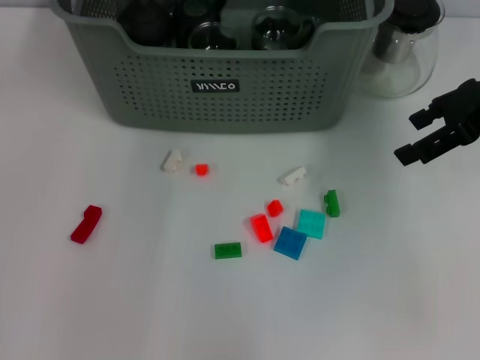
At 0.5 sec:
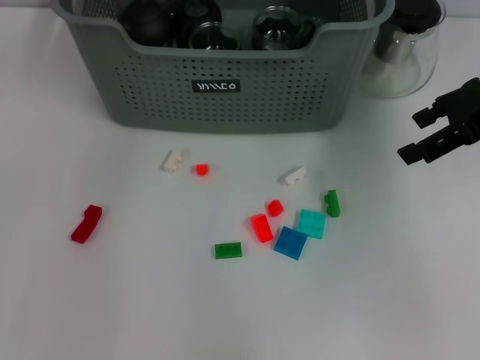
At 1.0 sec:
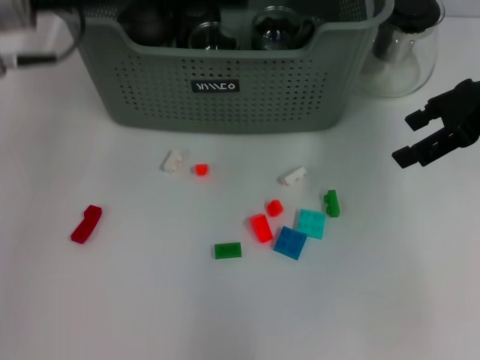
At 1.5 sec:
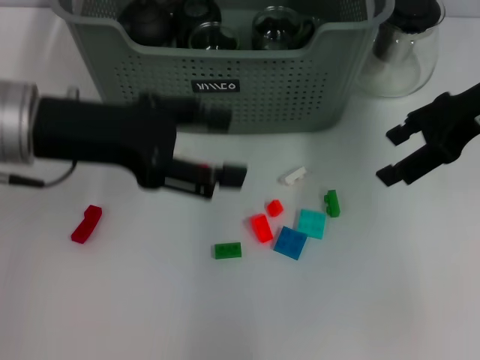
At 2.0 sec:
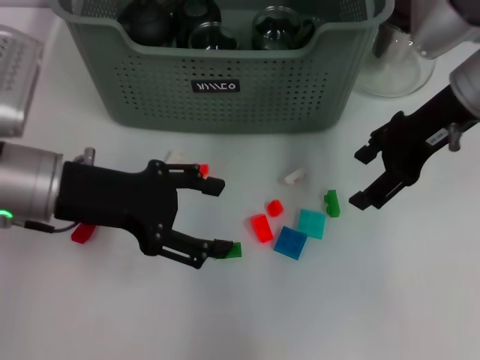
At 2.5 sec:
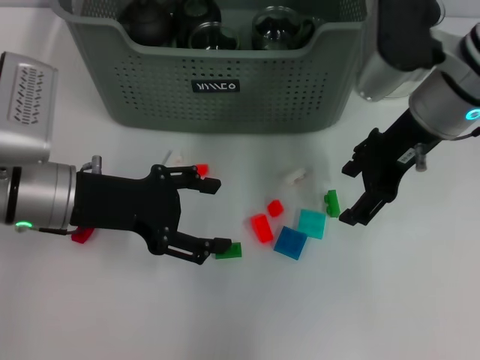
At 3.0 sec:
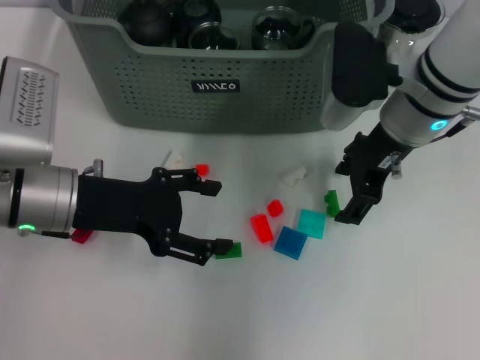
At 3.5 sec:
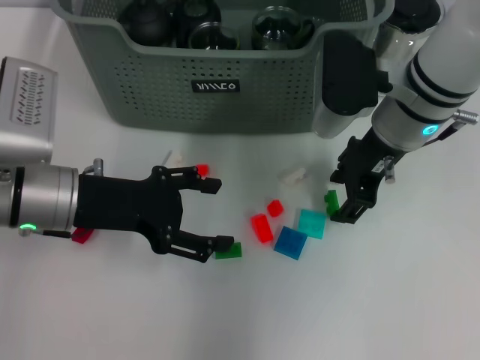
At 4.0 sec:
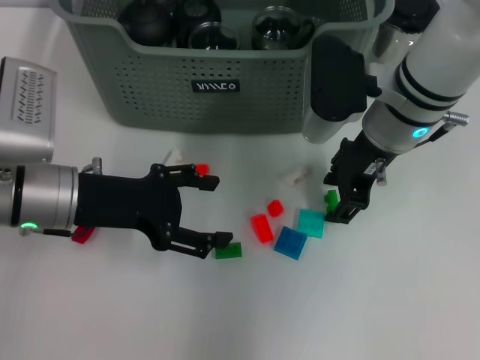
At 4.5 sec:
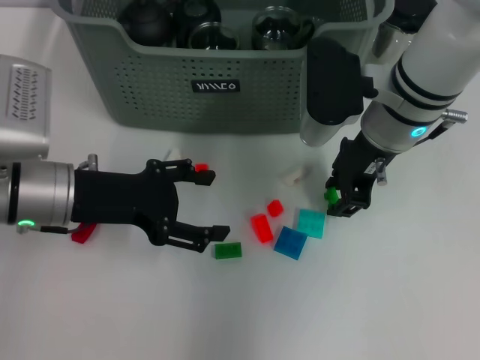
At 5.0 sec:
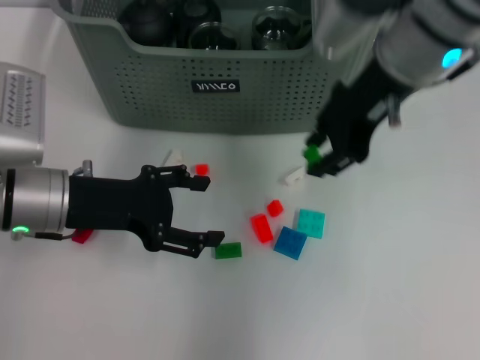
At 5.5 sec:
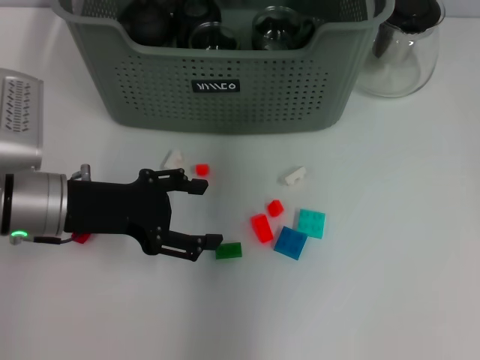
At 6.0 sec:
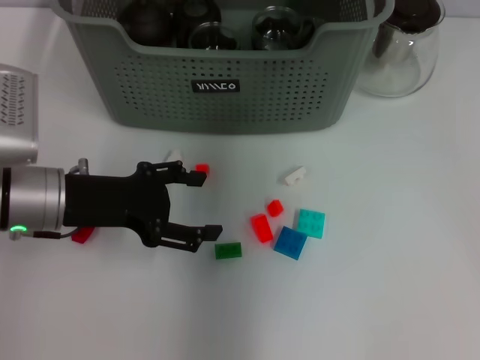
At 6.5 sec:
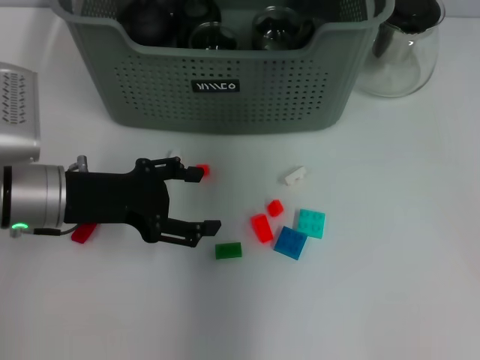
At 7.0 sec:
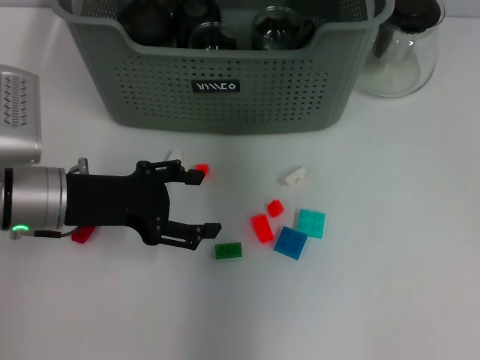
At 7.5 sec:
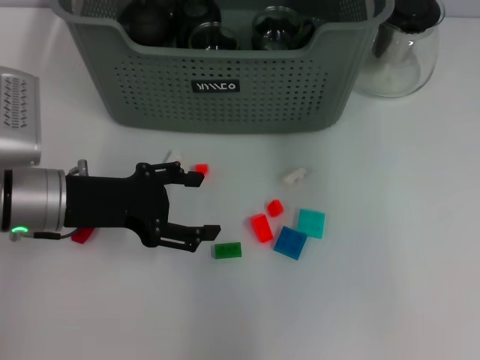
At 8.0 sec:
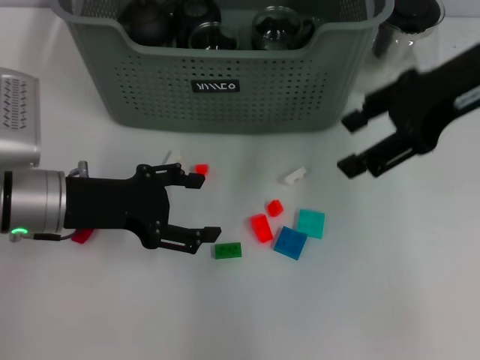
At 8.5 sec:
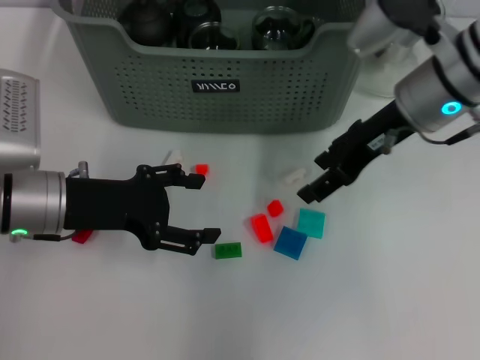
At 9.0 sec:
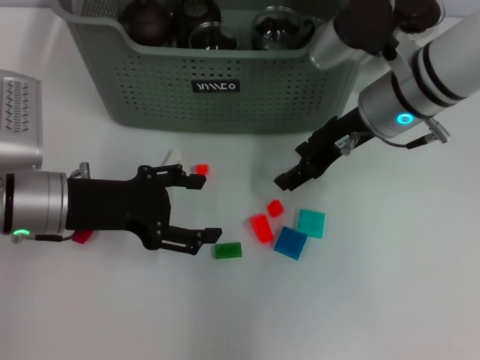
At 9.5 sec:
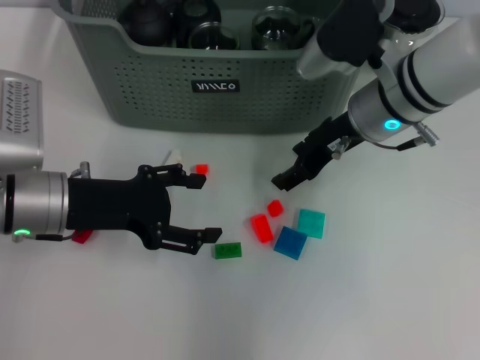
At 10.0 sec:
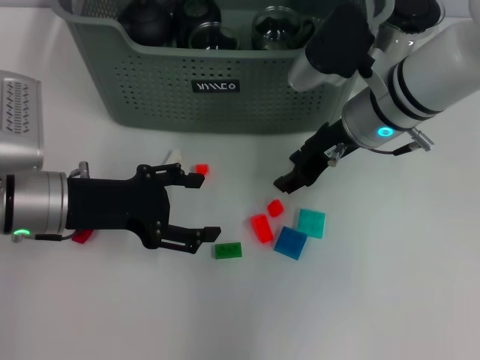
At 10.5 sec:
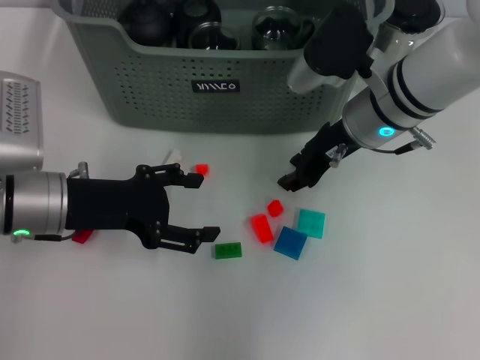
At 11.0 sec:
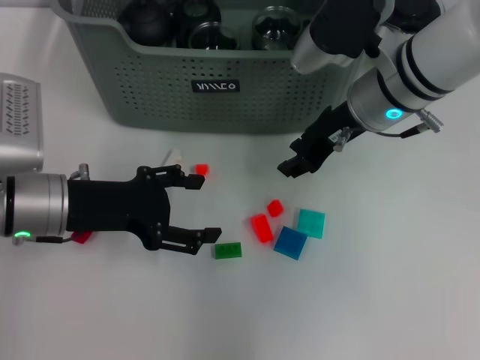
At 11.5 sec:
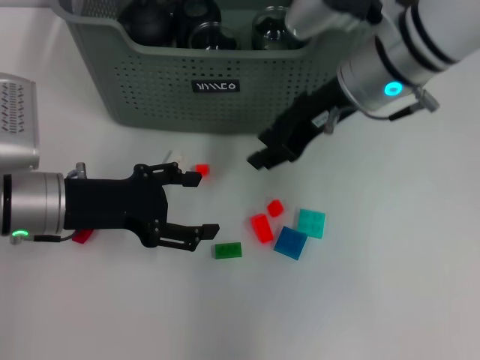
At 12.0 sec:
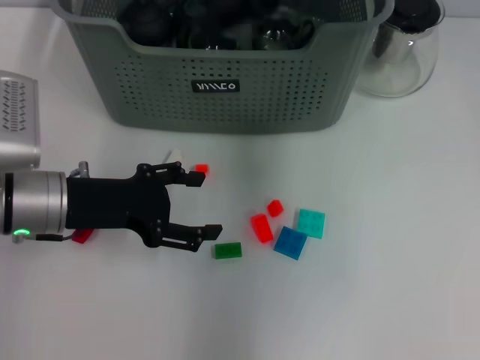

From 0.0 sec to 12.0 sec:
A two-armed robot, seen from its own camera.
Task of the whole recording: pick up the teacup on the table and place it into the storage bin, pick up the block on the table and place it into the storage bin.
Step, from 0.0 sec to 4.0 sec: Grasp the green block with right gripper.
Step, from 4.5 sec to 6.5 sec: Place the green block in the storage box with right gripper.
Step, from 7.0 sec to 10.0 sec: Grasp the white block with right gripper.
From 0.0 sec to 2.0 sec: The left gripper is displaced backward, to the left and downward by about 25 cm, and opens up. The right gripper shifts some 5 cm to the left.
From 2.0 sec to 4.0 sec: The right gripper goes roughly 10 cm to the left.
From 4.0 sec to 6.0 sec: The right gripper shifts some 15 cm upward, forward and to the left.
From 6.0 sec to 8.0 sec: The right gripper moves to the right and backward, approximately 20 cm.
From 8.0 sec to 10.0 sec: The right gripper travels downward and to the left by roughly 15 cm.
From 10.0 sec to 12.0 sec: The right gripper shifts about 20 cm upward.

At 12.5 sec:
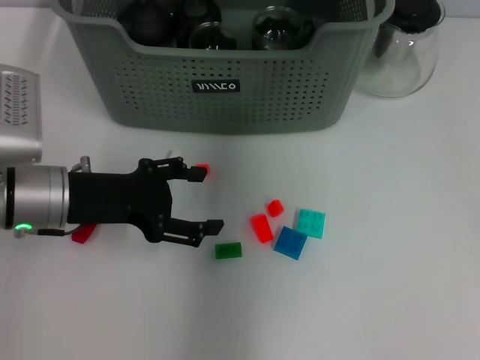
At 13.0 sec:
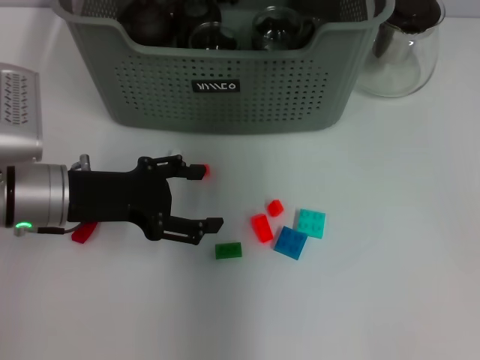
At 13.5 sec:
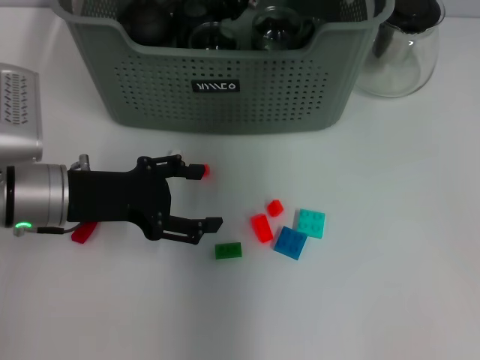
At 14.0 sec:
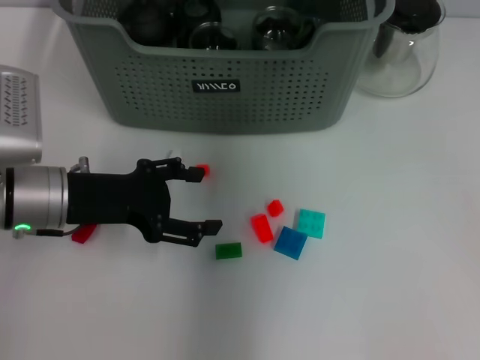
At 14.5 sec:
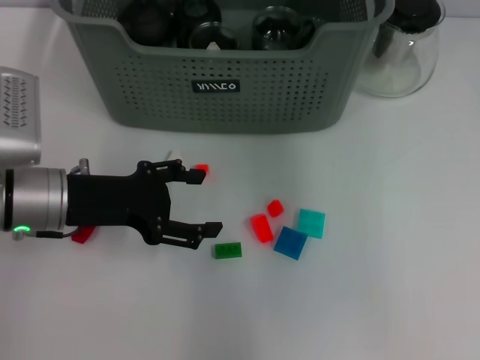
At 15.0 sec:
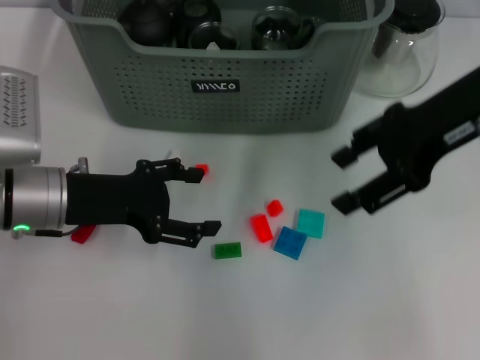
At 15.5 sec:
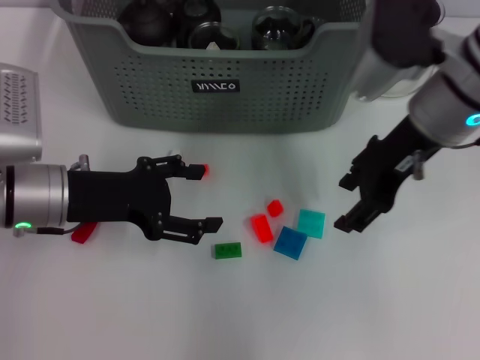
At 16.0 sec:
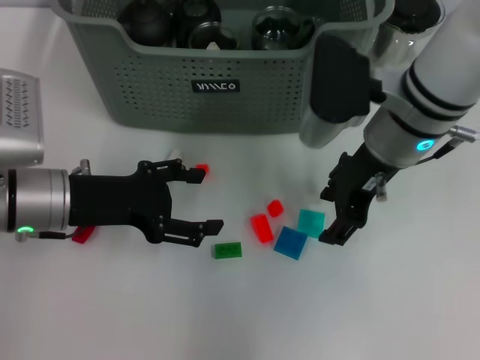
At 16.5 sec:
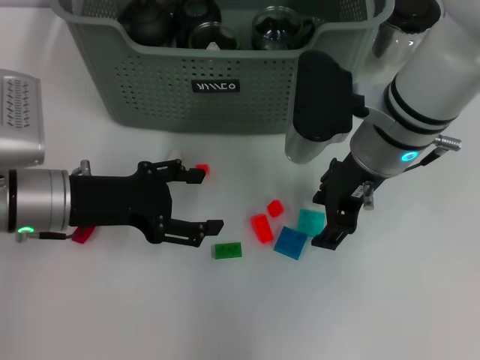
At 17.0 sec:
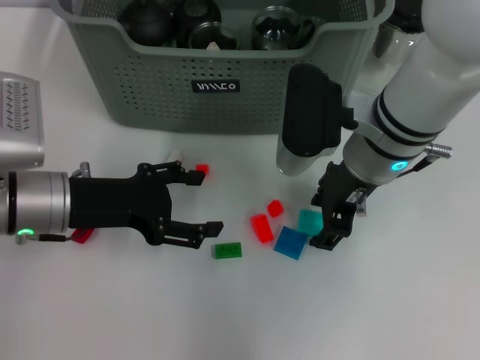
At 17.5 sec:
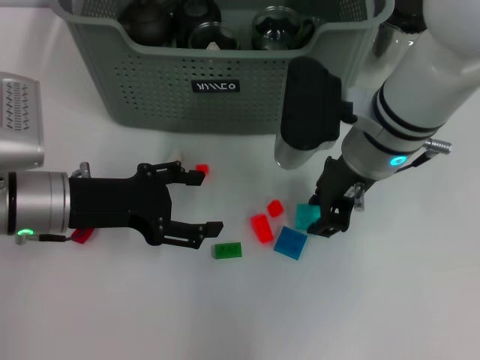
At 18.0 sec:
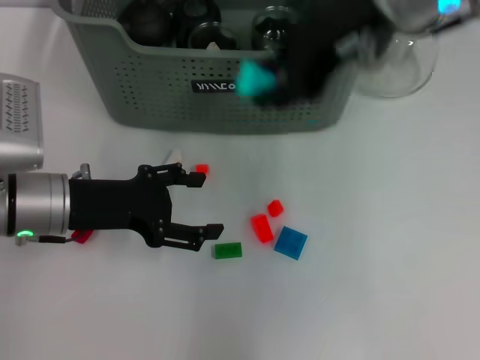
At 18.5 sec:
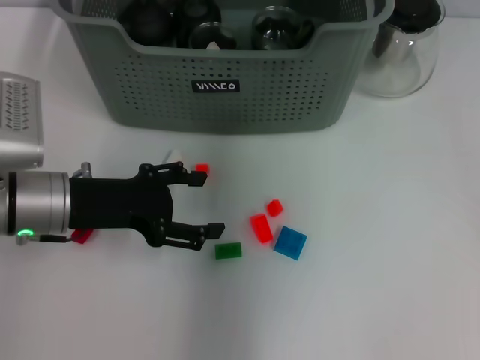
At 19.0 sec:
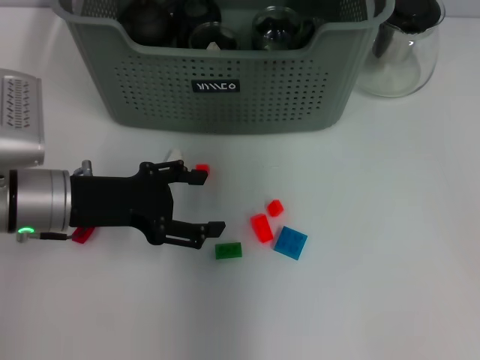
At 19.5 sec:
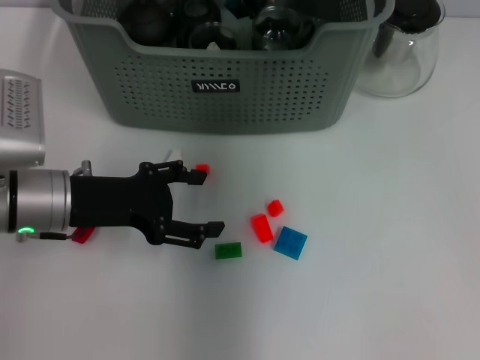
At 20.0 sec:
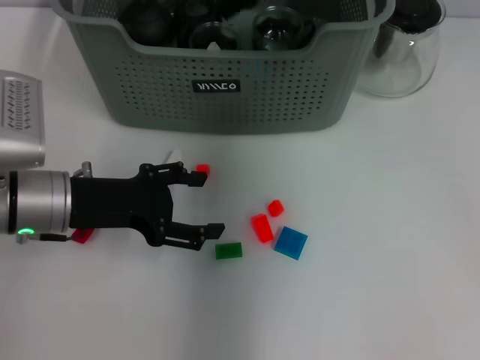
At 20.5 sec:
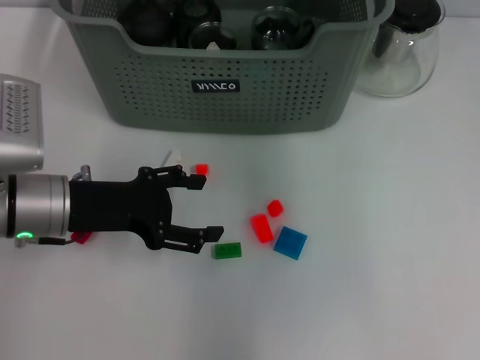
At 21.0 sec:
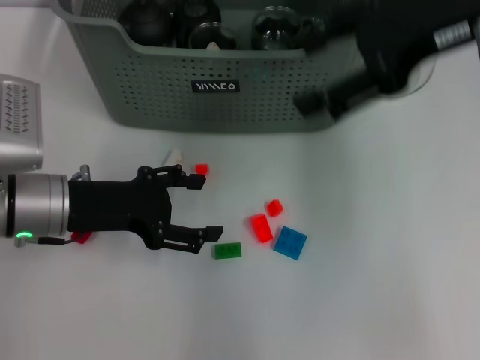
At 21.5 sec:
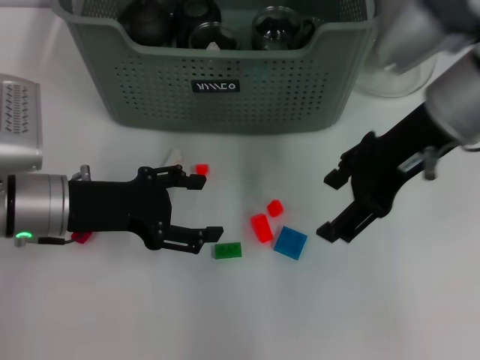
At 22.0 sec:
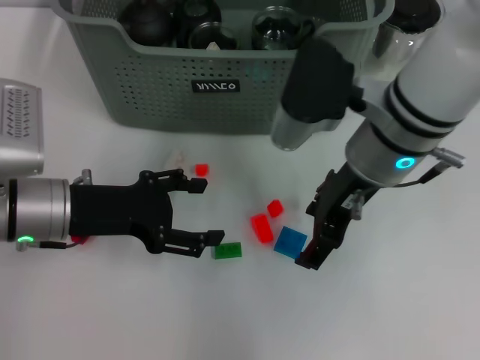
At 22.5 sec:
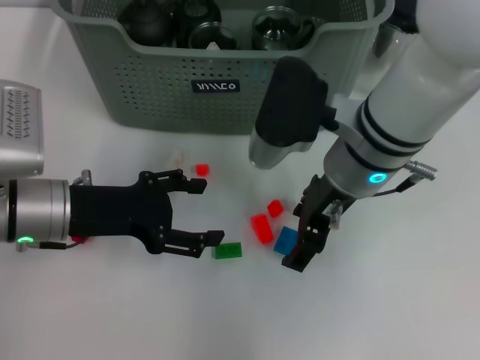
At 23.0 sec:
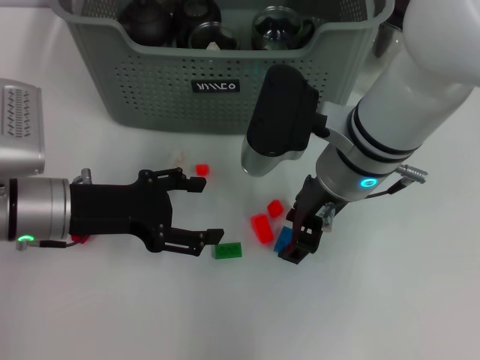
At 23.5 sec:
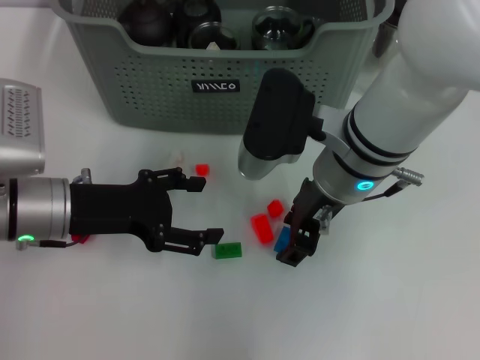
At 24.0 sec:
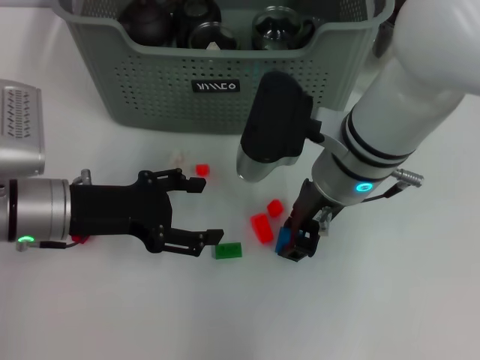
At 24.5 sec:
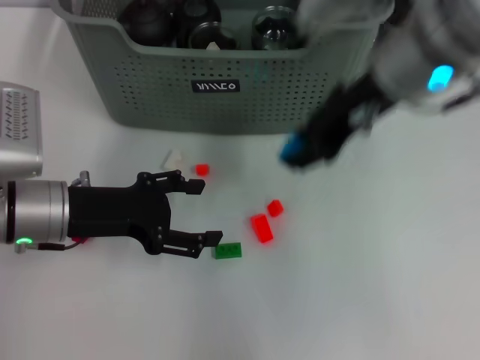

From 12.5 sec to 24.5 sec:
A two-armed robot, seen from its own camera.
Task of the whole recording: pick up the teacup on the table and place it into the storage bin, pick up the block on the table and place it into the storage bin.
Step, from 14.0 sec to 17.0 sec: Grasp the light blue block with right gripper.
Step, from 17.5 sec to 19.5 sec: Place the light blue block in the storage box with right gripper.
Step, from 20.0 sec to 23.5 sec: Grasp the dark blue block with right gripper.
From 12.5 sec to 14.5 sec: The right gripper travels backward and to the right by roughly 10 cm, and opens up.
From 14.5 sec to 16.5 sec: The right gripper heads downward, covering some 15 cm.
From 16.5 sec to 18.5 sec: The right gripper moves upward and forward, some 20 cm, and closes.
From 18.5 sec to 20.5 sec: The right gripper reaches roughly 10 cm downward, then returns, and opens its fingers.
From 20.5 sec to 22.5 sec: The right gripper shifts roughly 20 cm downward and backward.
From 22.5 sec to 24.5 sec: The right gripper moves upward, about 10 cm, and closes up.

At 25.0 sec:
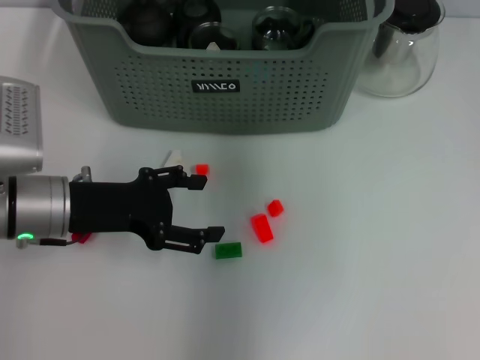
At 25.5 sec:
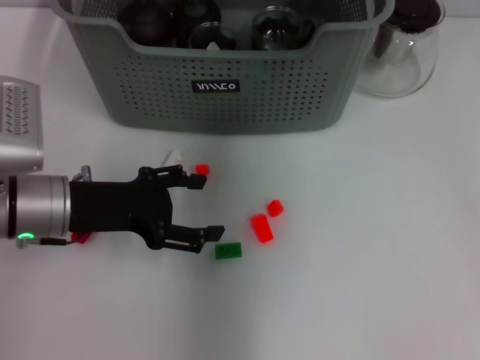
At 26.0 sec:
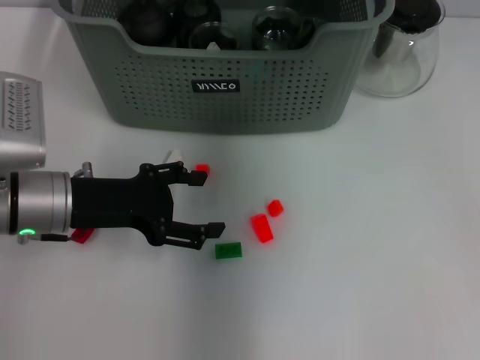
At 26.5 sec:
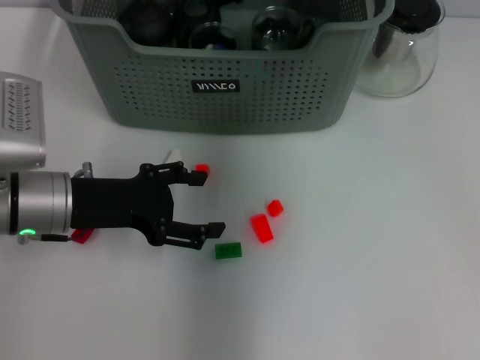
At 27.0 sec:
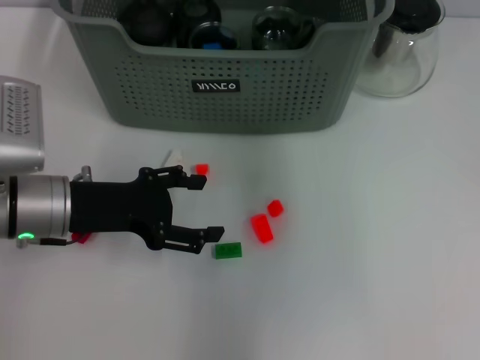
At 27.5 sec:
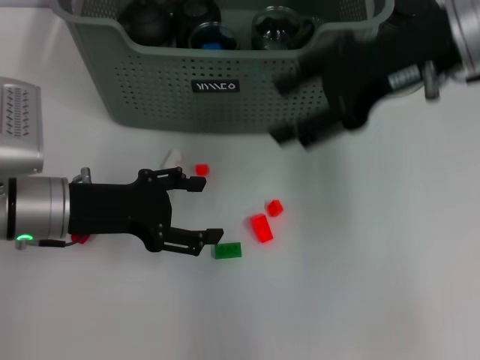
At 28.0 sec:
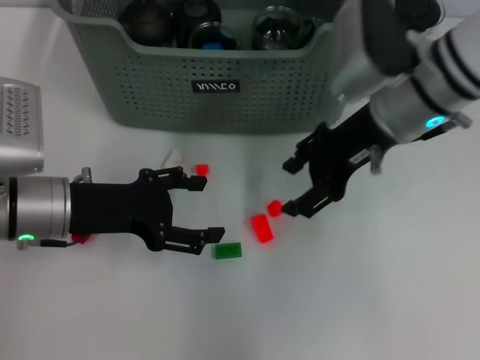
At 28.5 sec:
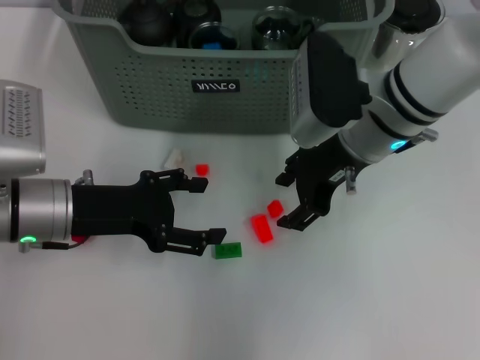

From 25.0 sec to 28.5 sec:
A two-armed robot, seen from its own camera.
Task of the whole recording: pick up the teacup on the table and place it into the storage bin, pick up the block on the table and place it into the storage bin.
From 27.0 sec to 28.5 sec: The right gripper goes approximately 15 cm downward and backward.
